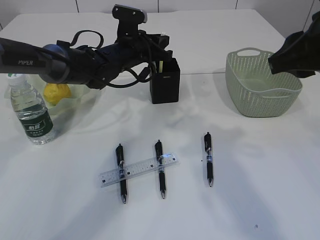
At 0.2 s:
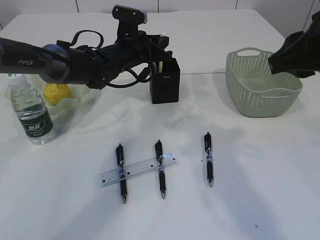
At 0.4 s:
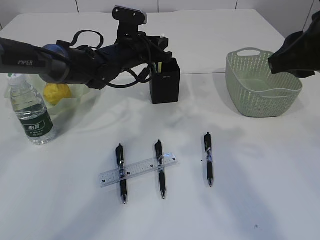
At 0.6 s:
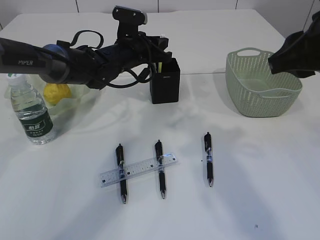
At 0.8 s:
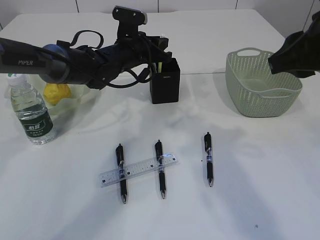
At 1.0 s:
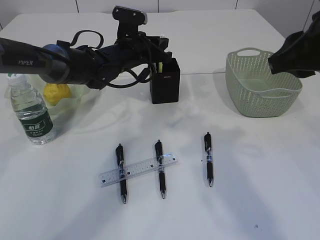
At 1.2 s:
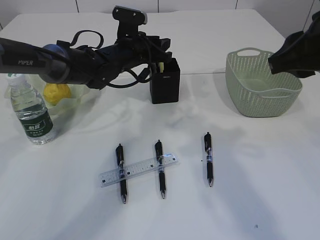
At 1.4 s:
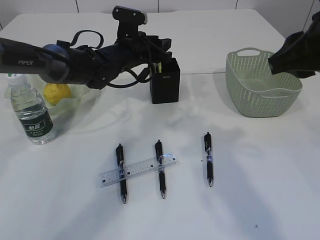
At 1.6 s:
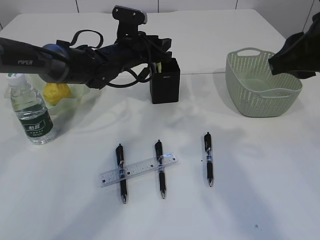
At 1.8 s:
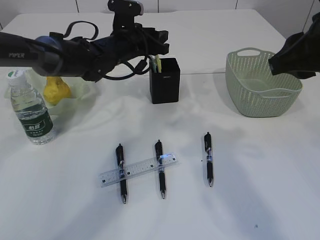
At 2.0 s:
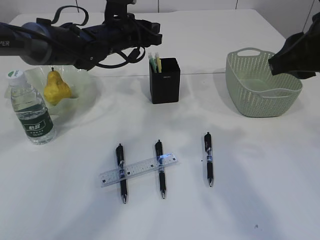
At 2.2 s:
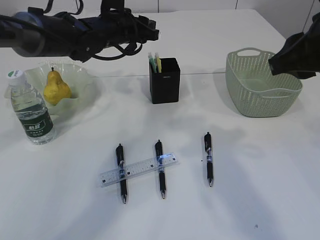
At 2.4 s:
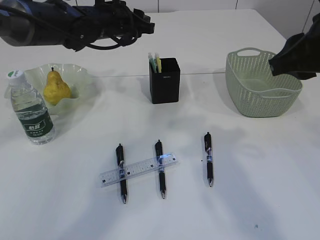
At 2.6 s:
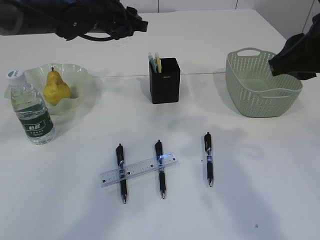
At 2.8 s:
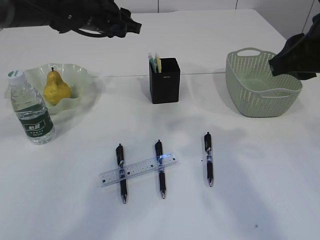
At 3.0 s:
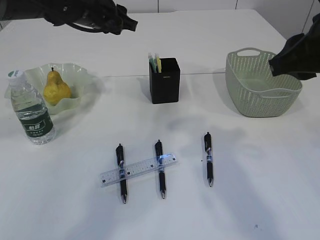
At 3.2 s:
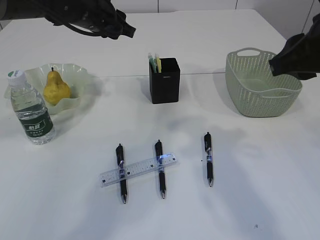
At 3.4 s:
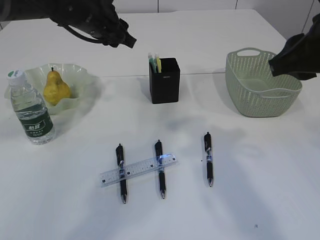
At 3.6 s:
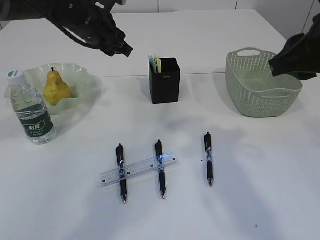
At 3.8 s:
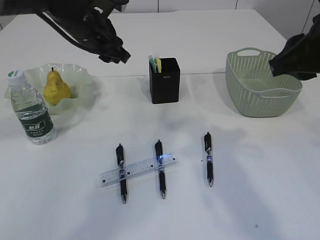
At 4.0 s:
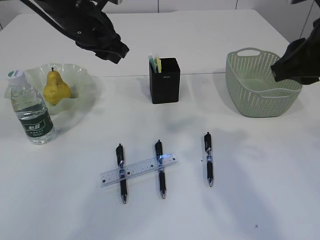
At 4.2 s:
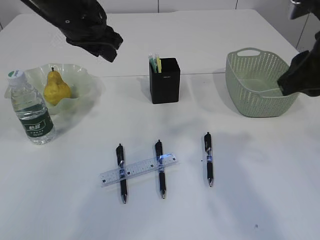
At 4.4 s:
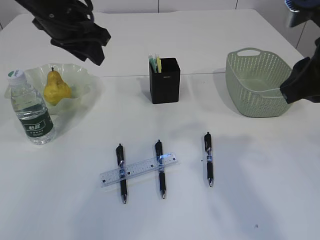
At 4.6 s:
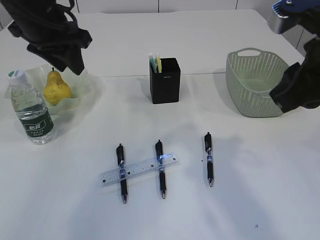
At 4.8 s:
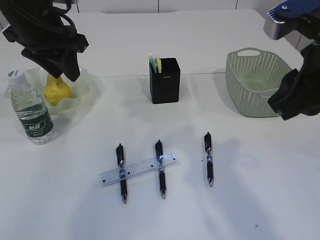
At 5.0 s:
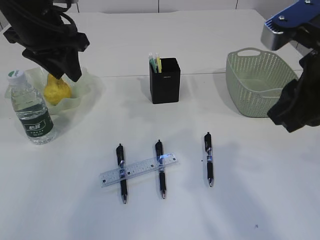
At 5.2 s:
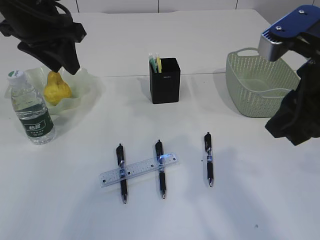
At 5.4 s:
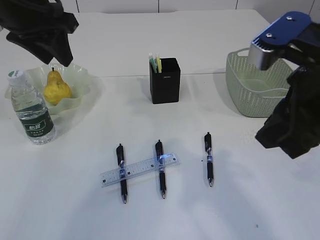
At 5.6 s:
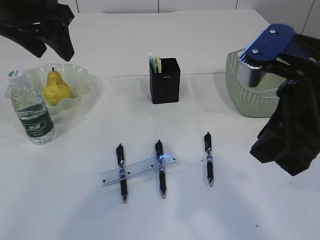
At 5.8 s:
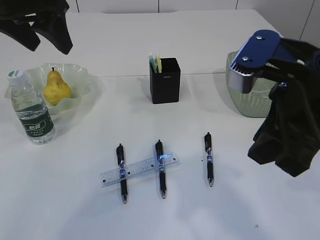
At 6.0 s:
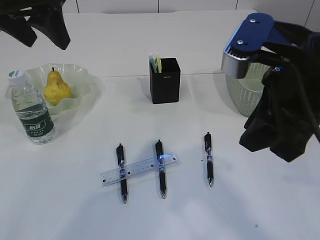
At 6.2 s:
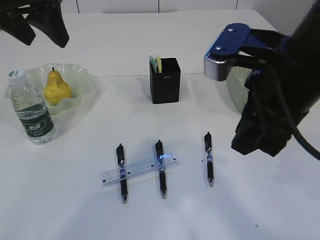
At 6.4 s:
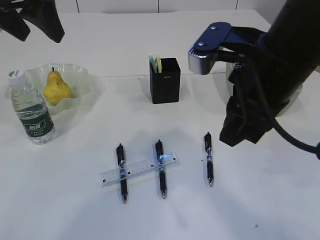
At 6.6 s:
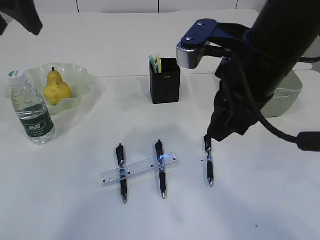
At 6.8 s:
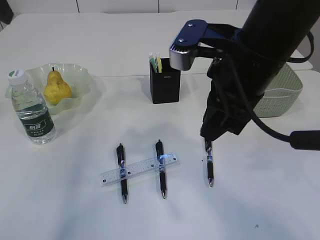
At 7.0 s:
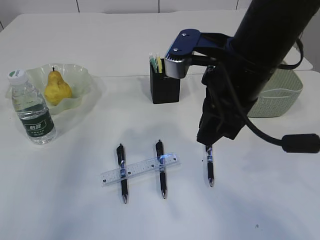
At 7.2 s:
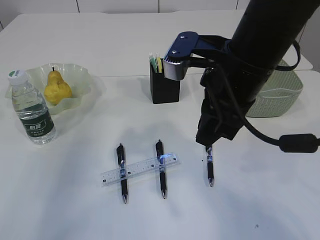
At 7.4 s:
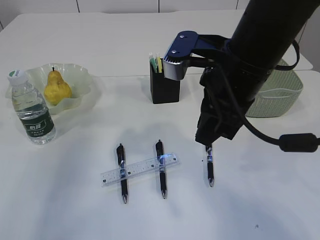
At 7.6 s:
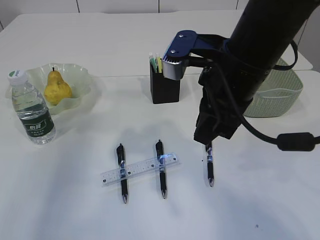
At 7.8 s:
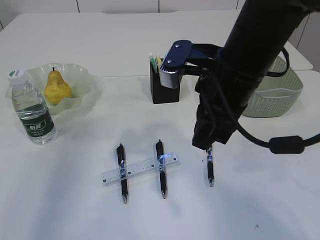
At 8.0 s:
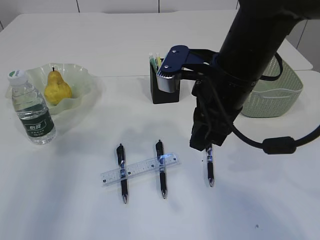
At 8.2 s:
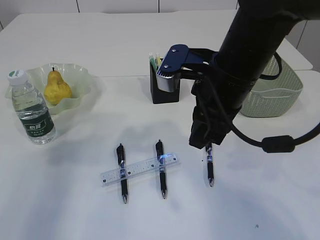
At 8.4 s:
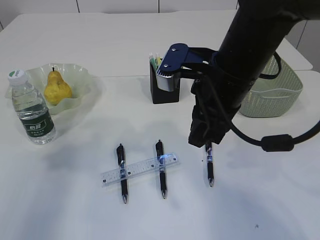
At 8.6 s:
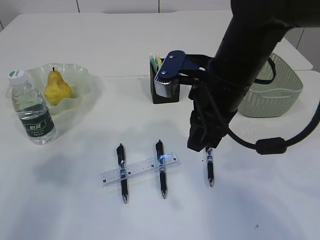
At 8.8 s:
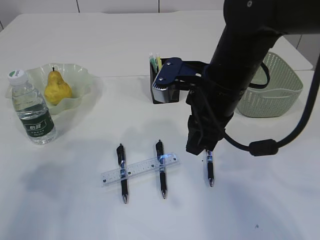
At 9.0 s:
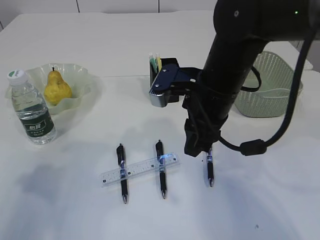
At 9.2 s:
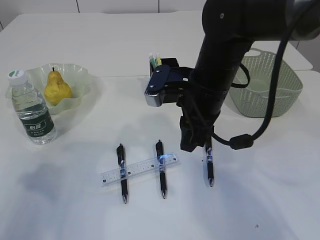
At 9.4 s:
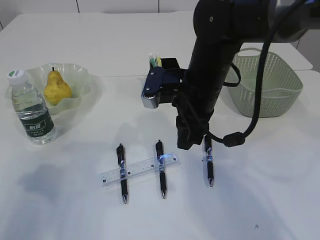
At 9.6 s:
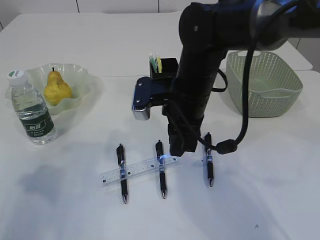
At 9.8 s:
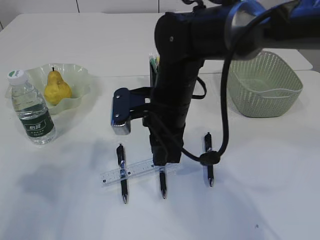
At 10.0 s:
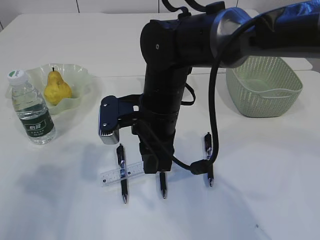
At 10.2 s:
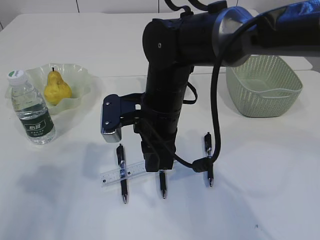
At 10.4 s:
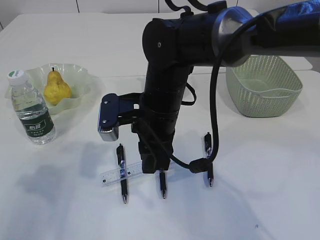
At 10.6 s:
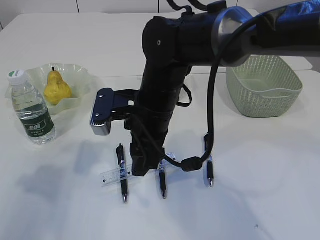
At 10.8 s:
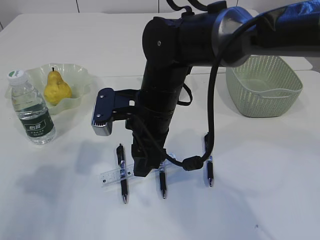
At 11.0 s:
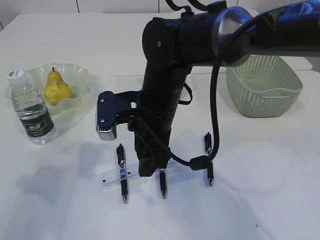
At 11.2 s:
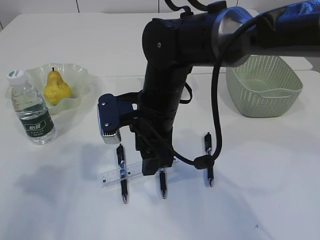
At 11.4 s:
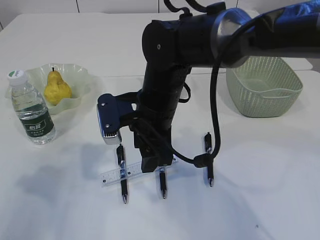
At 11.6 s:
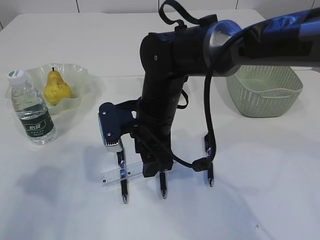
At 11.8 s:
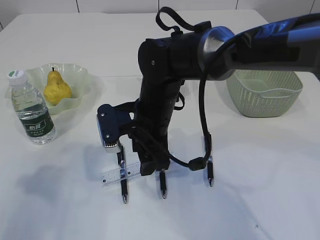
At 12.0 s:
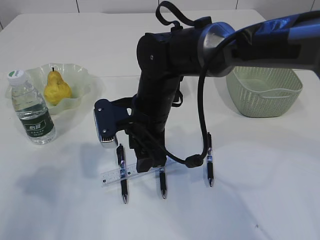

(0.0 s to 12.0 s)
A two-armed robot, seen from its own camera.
Step, 0.0 s - 2.8 s: place the yellow knife into the pen holder.
0.0 s - 1.6 s: The left gripper opens.
1.6 s - 3.0 s: The left gripper is displaced upward and to the left by some 10 cm.
3.0 s - 4.4 s: The left gripper moves backward, roughly 5 cm.
4.4 s - 6.0 s: The right gripper is displaced to the left by approximately 5 cm. The left gripper goes roughly 10 cm upward and backward, and opens up.
6.0 s - 7.6 s: The right gripper travels forward by approximately 5 cm; the left gripper moves to the left, approximately 10 cm.
7.6 s - 9.0 s: The left gripper travels backward and downward by roughly 15 cm. Meanwhile the right gripper heads downward, covering about 5 cm.
9.0 s - 10.4 s: The right gripper travels to the left by approximately 10 cm.
10.4 s - 12.0 s: The right gripper opens its fingers.

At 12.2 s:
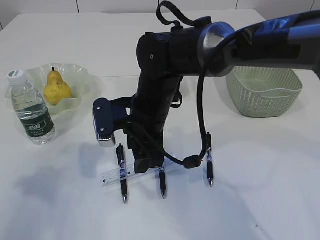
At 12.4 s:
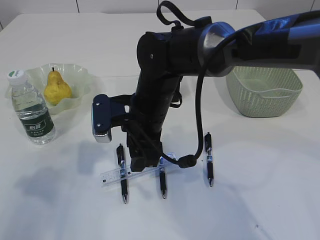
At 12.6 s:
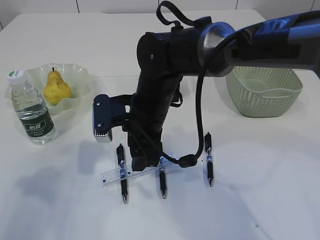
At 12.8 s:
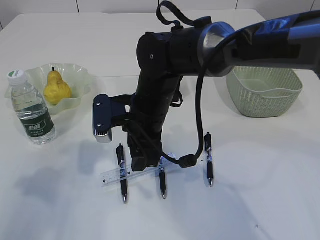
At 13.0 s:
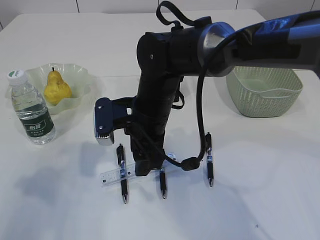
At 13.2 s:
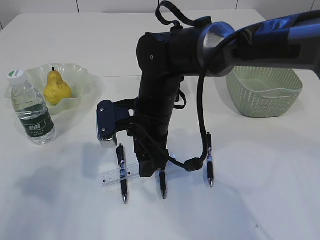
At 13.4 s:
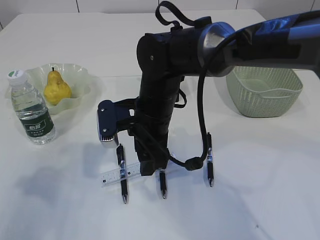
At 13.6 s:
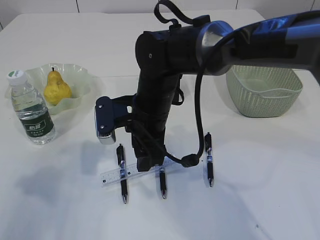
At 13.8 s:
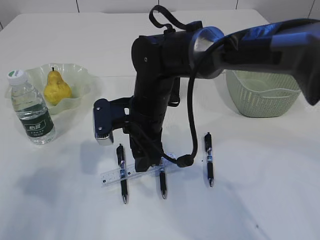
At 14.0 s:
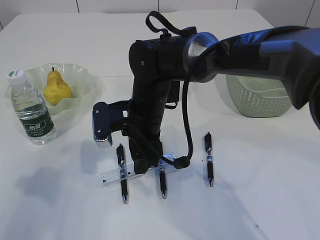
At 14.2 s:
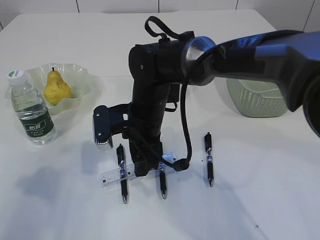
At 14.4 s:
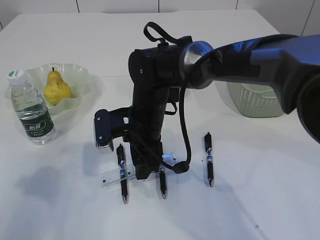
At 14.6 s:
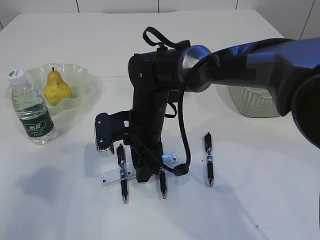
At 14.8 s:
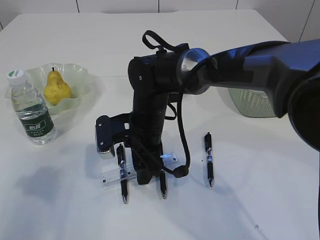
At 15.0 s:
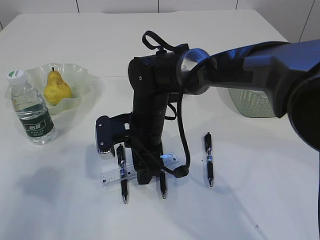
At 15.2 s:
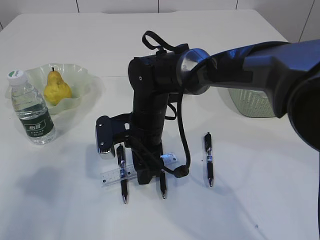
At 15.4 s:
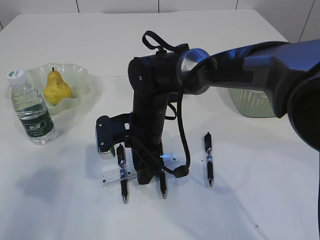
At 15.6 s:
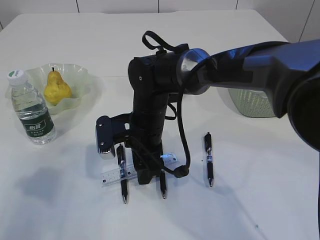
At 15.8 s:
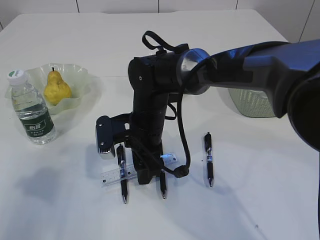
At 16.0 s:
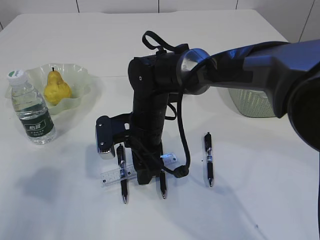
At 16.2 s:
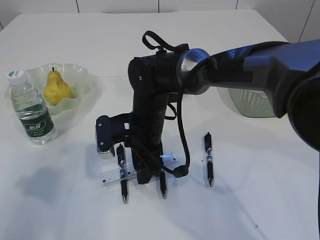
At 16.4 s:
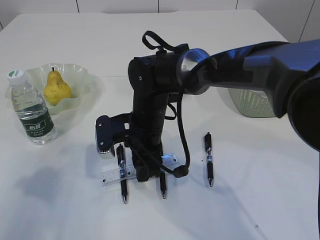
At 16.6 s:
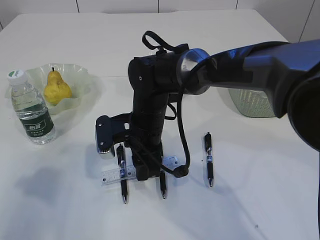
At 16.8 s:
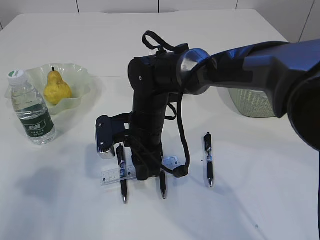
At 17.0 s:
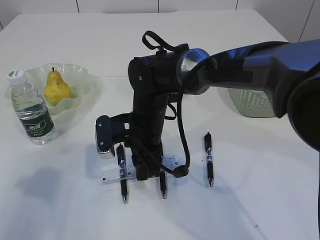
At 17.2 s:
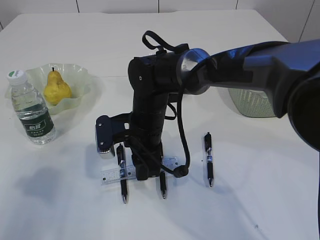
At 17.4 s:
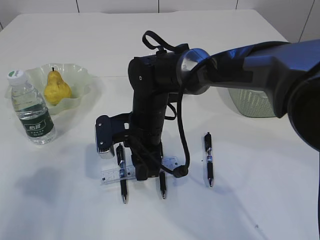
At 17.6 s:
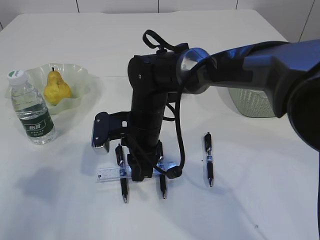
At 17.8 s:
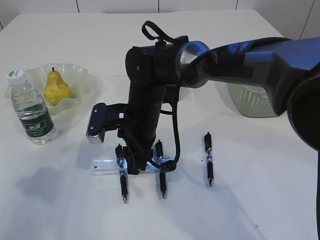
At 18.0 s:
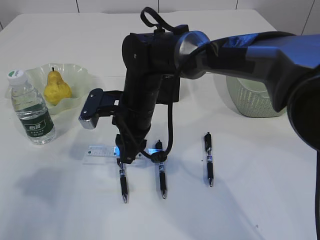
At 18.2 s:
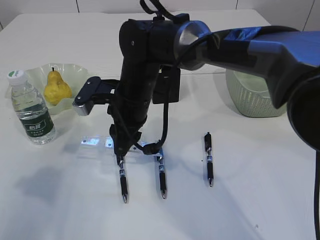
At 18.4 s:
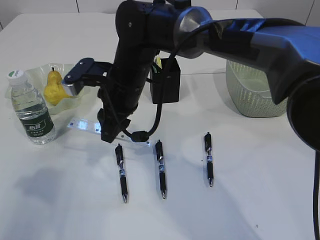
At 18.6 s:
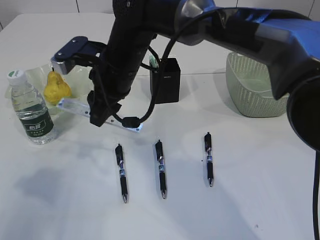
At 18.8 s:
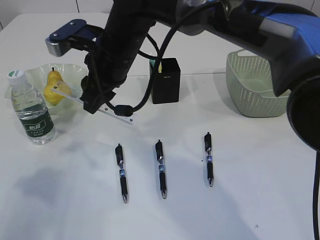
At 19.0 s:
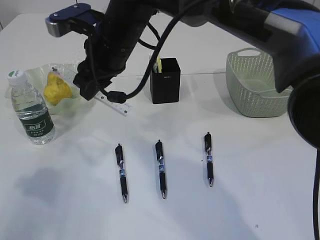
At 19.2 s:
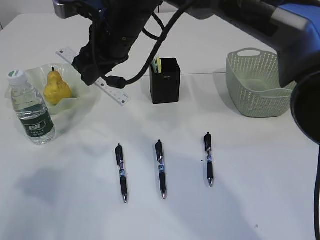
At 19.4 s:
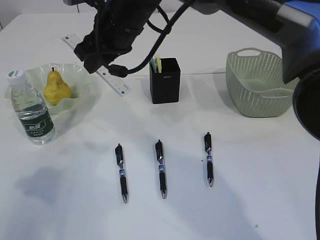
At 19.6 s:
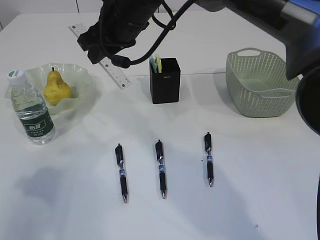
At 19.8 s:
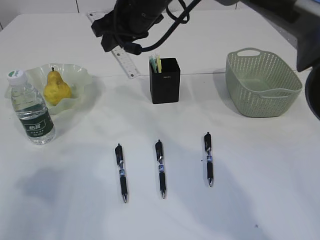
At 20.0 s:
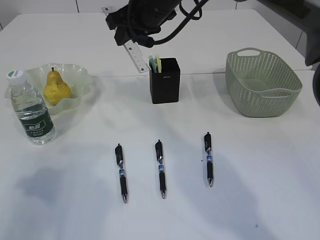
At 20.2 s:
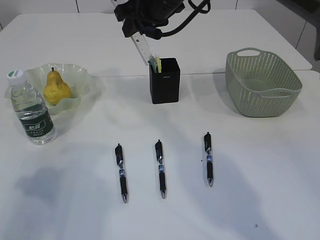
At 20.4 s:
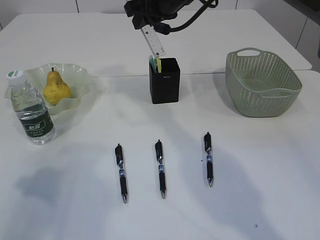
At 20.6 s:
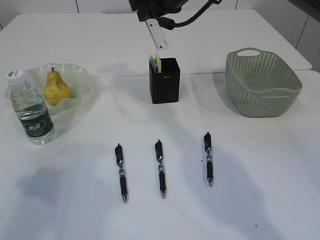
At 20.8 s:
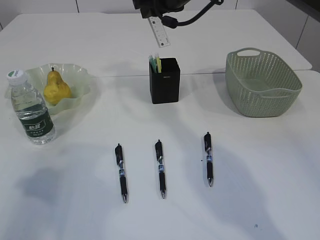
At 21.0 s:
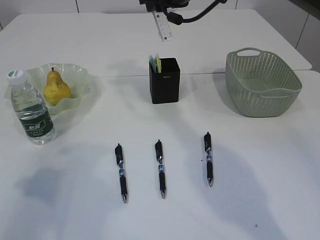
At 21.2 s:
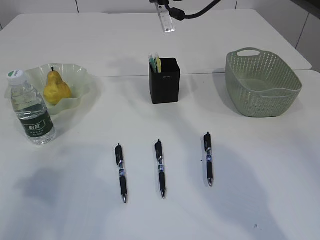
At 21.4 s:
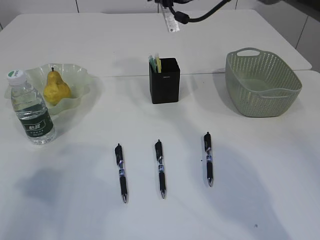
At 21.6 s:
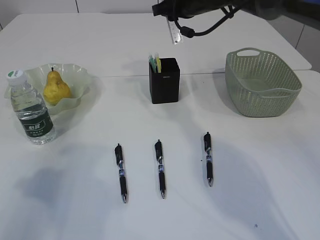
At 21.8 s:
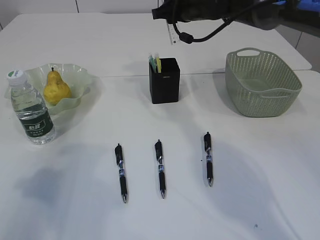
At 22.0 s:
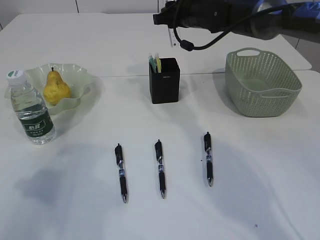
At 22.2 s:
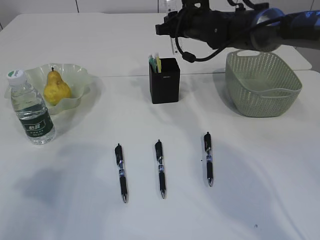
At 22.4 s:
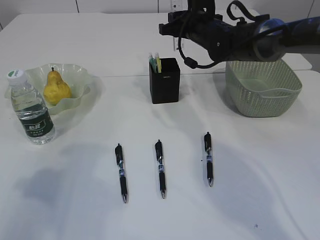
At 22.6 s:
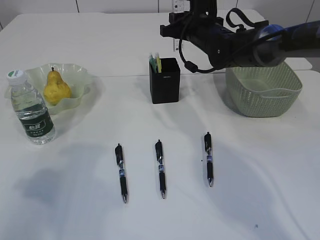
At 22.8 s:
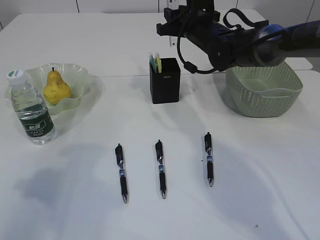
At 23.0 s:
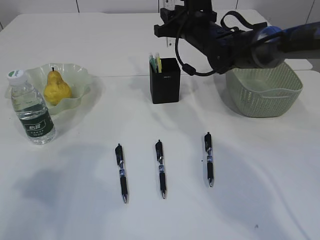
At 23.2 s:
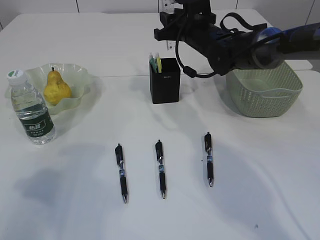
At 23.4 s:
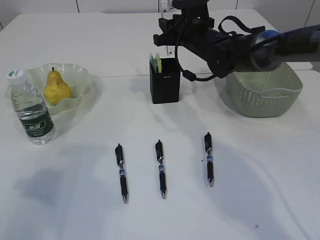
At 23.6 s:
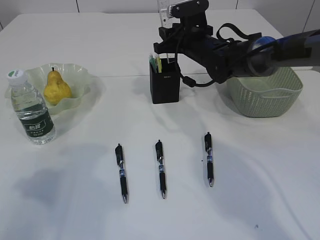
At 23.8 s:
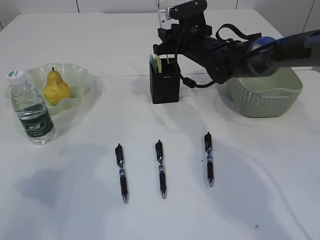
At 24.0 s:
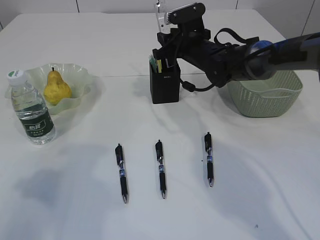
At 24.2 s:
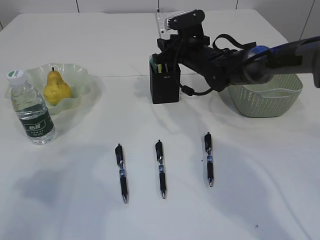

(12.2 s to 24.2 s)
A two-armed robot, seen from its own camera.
Step, 12.2 s - 18.2 s: pick up the ruler.
12.2 s - 15.2 s: The grippers stay close to where they were, moving slightly.
16.6 s - 18.2 s: The right gripper goes about 5 cm upward.
18.2 s - 19.8 s: The right gripper heads upward and forward, covering about 15 cm.
19.8 s - 21.2 s: The right gripper shifts some 10 cm to the right and forward.
21.2 s - 22.6 s: The right gripper moves downward, roughly 10 cm.
22.6 s - 24.2 s: The grippers make only small movements.
